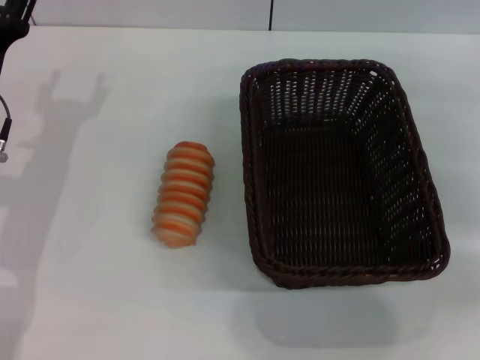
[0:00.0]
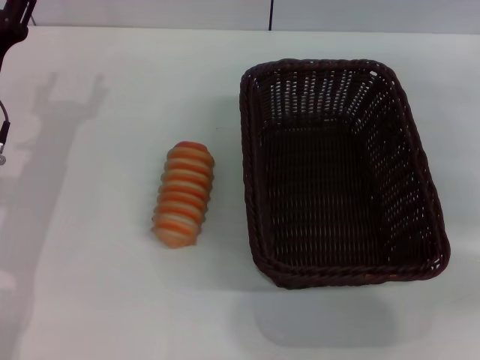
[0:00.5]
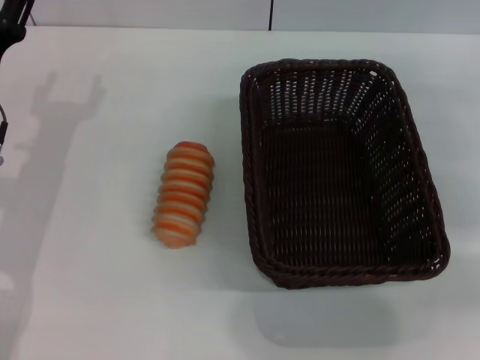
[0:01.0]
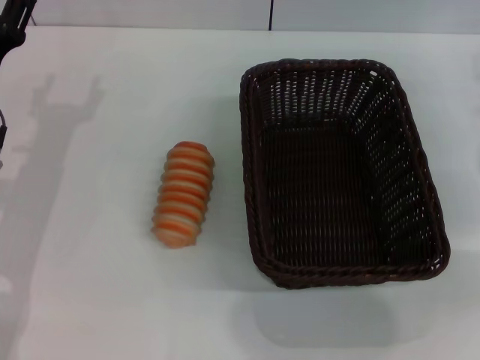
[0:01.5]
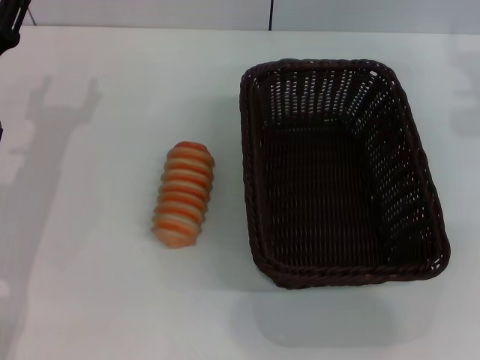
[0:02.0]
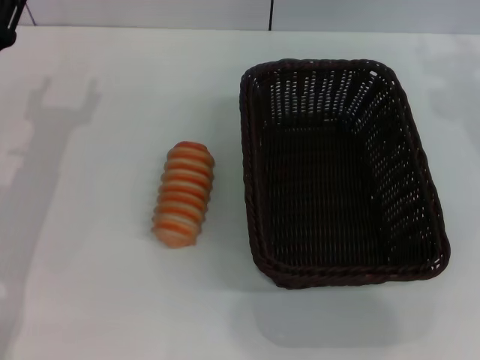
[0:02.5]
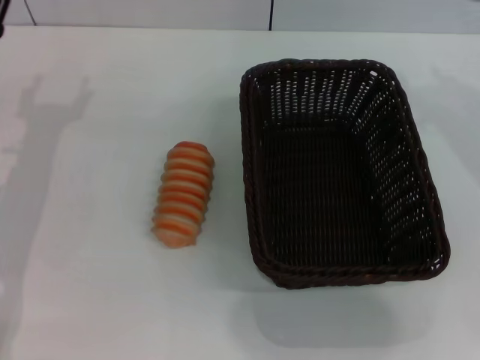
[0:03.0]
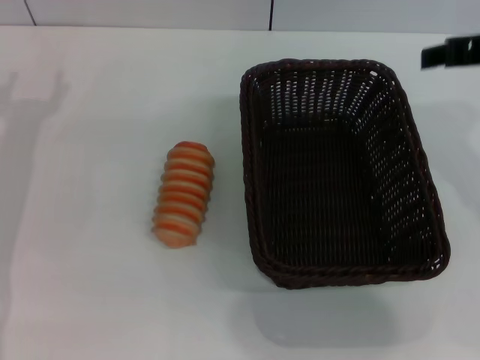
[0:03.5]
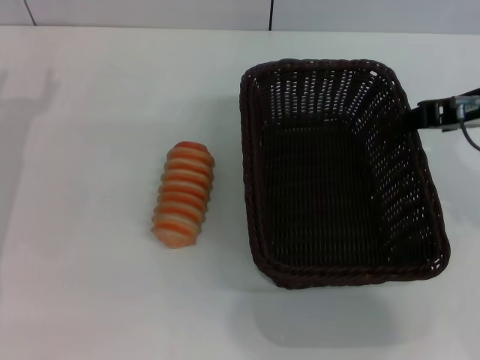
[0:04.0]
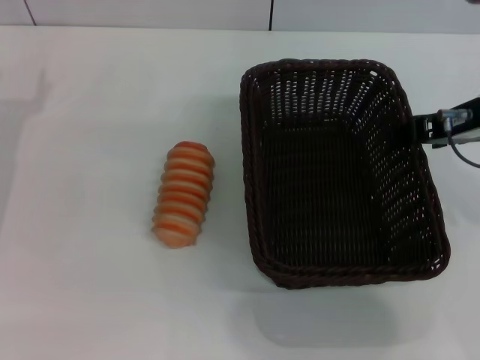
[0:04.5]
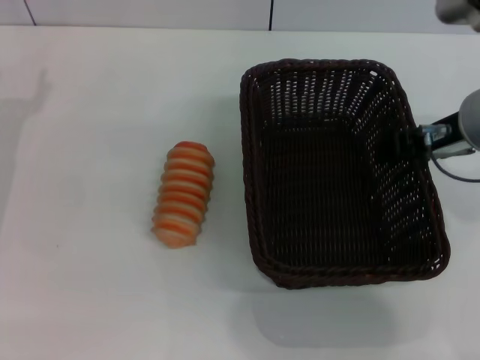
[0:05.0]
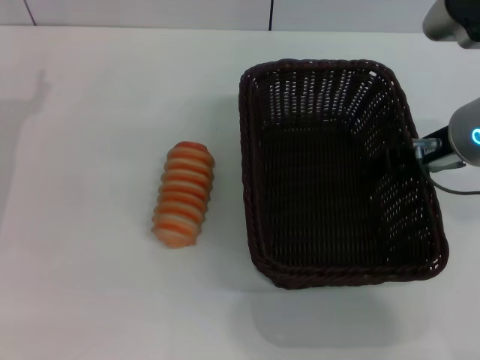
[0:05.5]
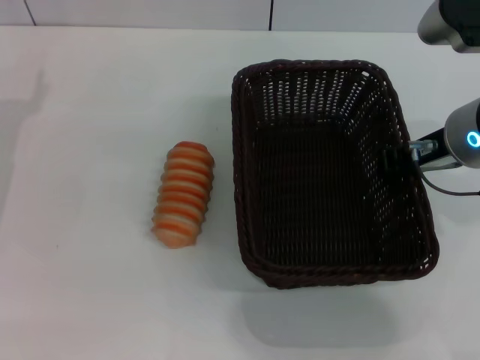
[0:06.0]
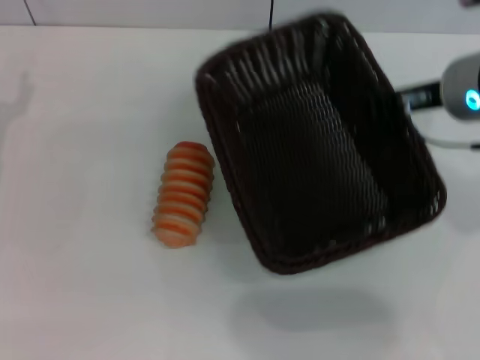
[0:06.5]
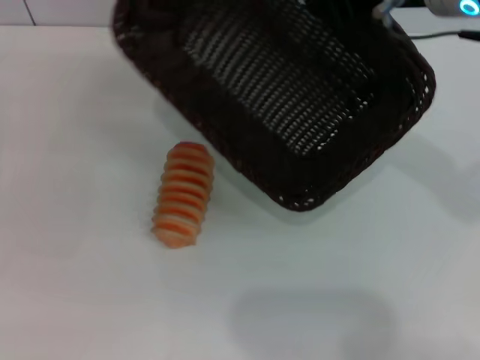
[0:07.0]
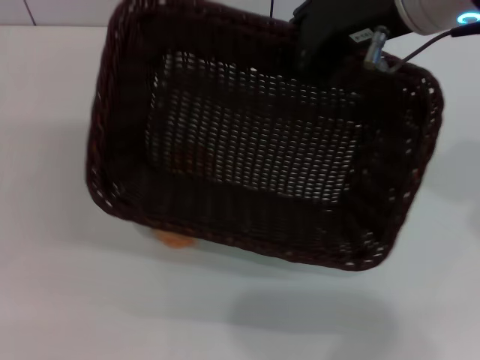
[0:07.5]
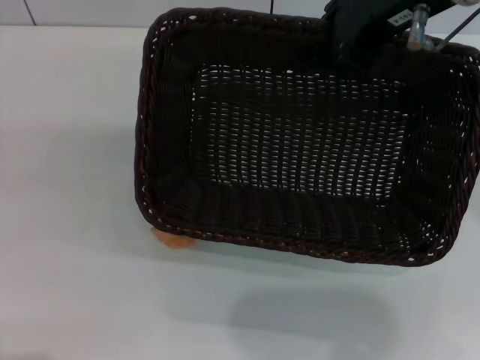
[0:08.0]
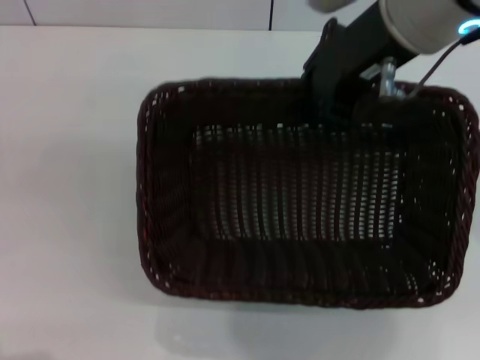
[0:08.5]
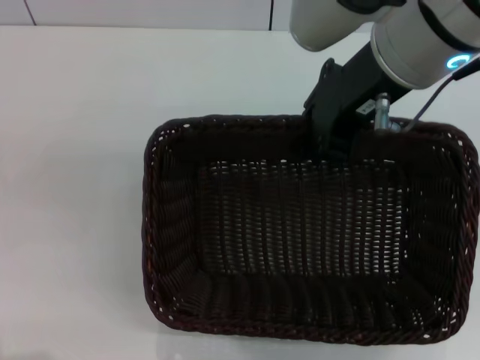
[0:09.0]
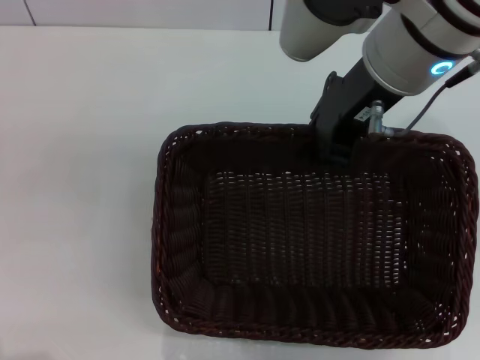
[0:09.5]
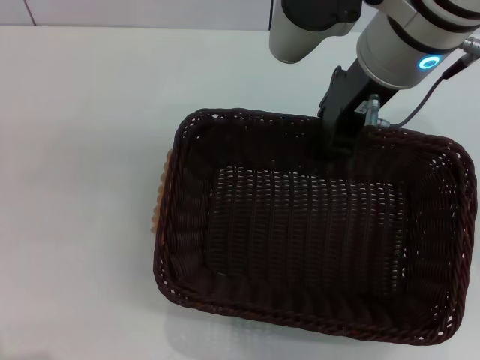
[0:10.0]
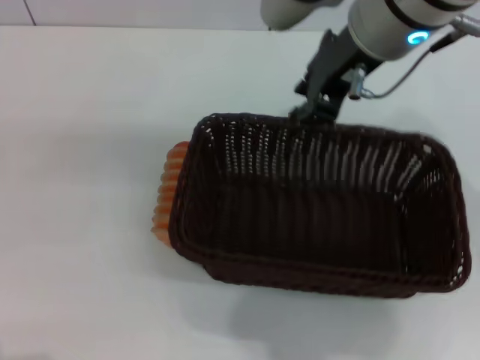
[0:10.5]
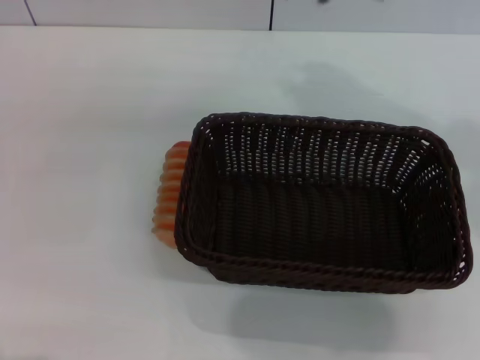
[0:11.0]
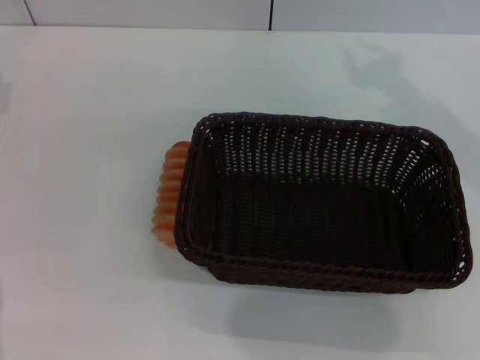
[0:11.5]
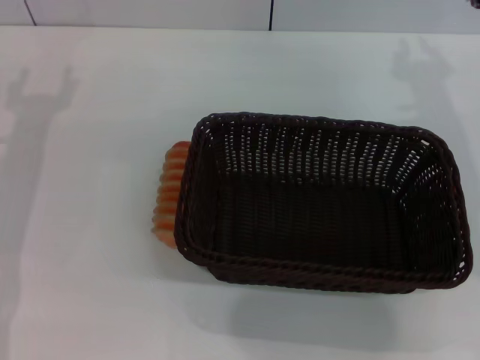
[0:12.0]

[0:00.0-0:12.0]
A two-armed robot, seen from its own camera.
Step, 0:00.0 to 0:06.5: Pick up the dark basket with the right gripper.
Step, 0:07.0 to 0:10.5: Place the dark basket in the center of view with the right gripper.
0:02.0 to 0:04.0: The right gripper travels to the left and backward by approximately 10 cm.
0:04.0 to 0:06.0: The right gripper changes place by some 5 cm, and closes up.
0:06.0 to 0:08.0: The right gripper heads upward, covering some 15 cm, and closes.
0:08.0 to 0:10.0: The right gripper goes some 5 cm downward.
0:10.0 to 0:12.0: The right gripper is displaced to the right and downward by about 15 cm. The left gripper heads to the right, covering approximately 5 cm.

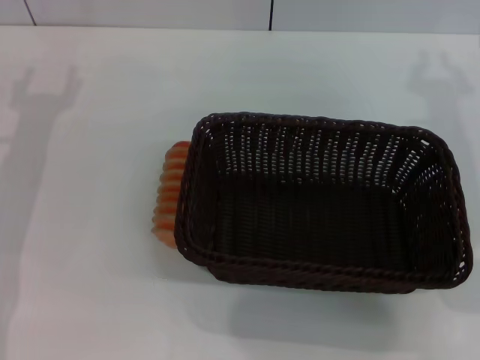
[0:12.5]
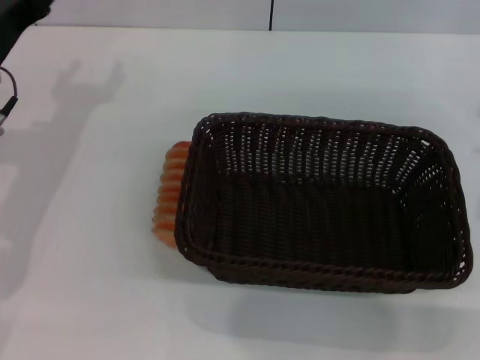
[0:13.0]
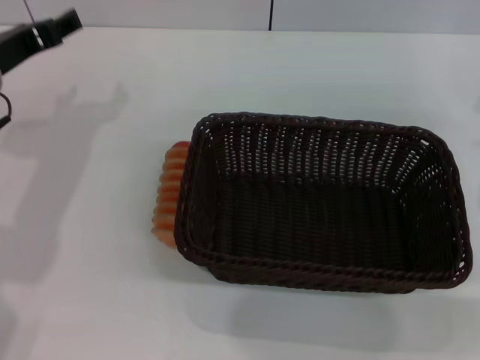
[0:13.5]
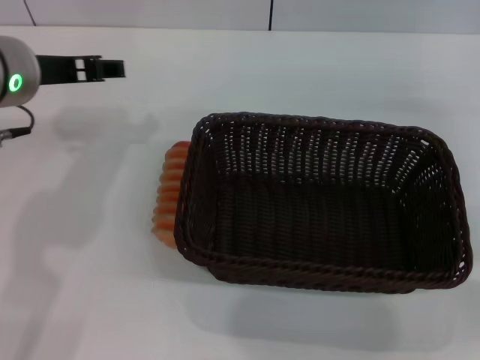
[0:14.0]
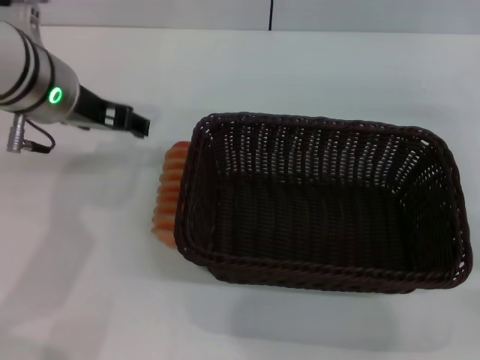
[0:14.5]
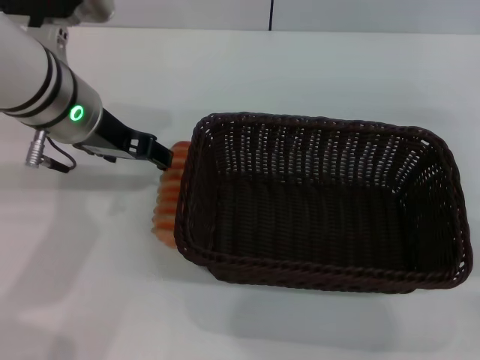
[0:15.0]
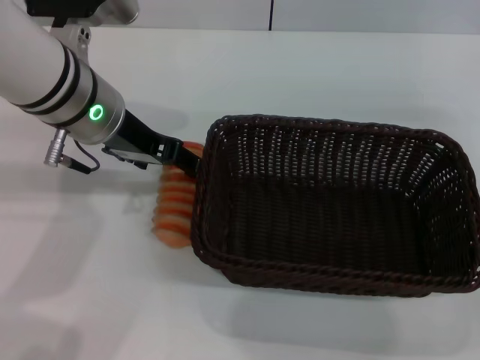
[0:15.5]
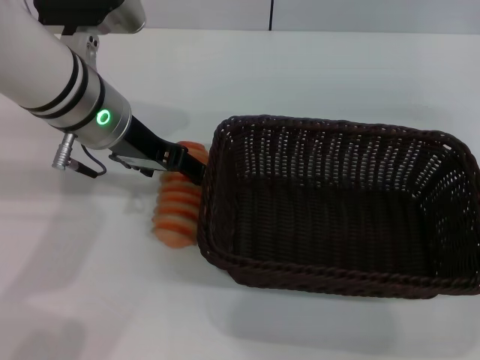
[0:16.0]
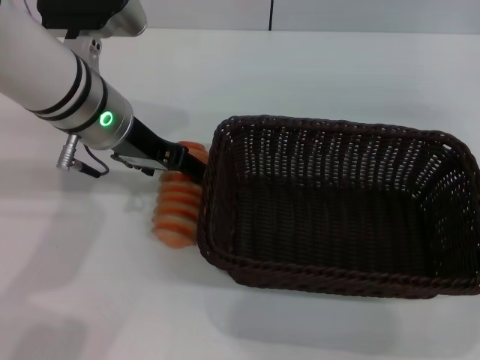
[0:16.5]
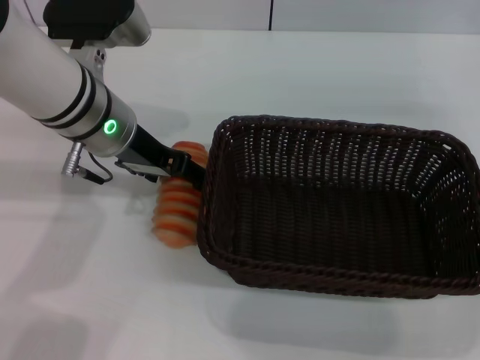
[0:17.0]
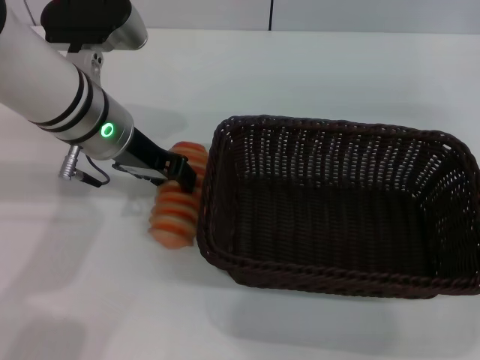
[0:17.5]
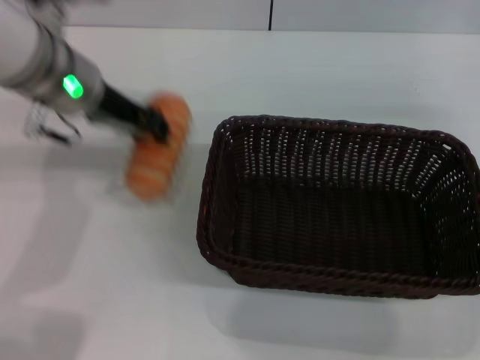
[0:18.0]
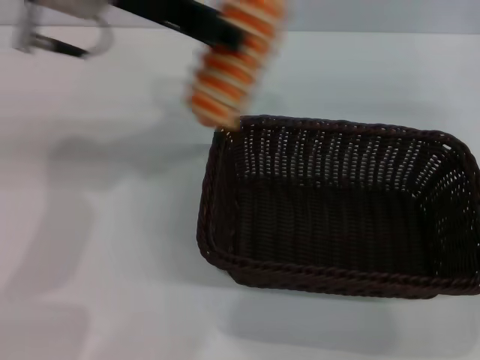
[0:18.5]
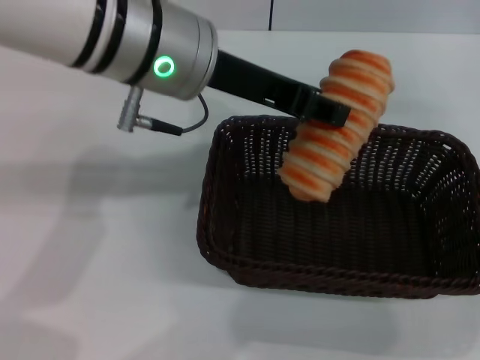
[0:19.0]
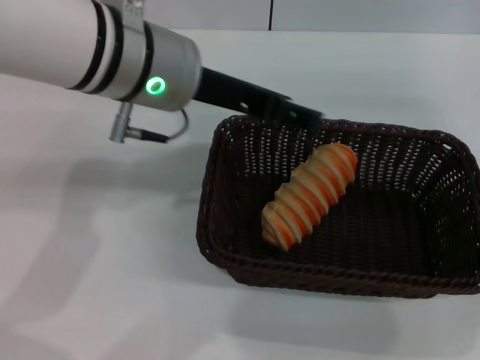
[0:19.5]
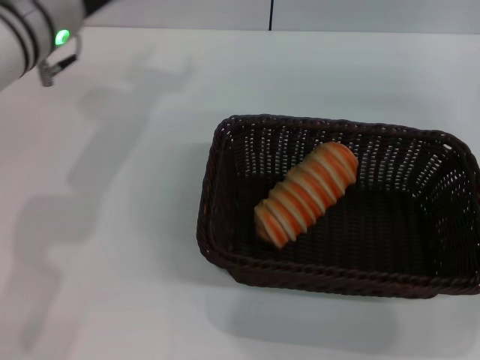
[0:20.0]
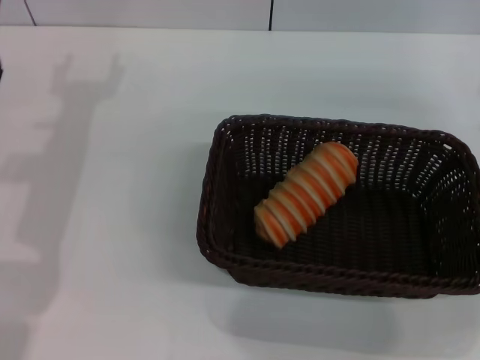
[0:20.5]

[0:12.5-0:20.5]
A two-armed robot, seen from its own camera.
Step, 0:12.5 to 0:18.0: Pick up the long bread with the left gripper.
Step, 0:18.5 to 0:19.5: Place the long bread into the dark basket with the left gripper.
0:12.5 to 0:14.5: The right gripper goes about 15 cm to the right and downward. The left gripper goes some 15 cm to the right and upward.
0:14.5 to 0:16.5: The grippers make only small movements.
0:16.5 to 0:18.5: The left gripper moves upward, approximately 15 cm, and closes.
0:18.5 to 0:20.5: The left gripper travels downward and to the left by some 20 cm, and opens.

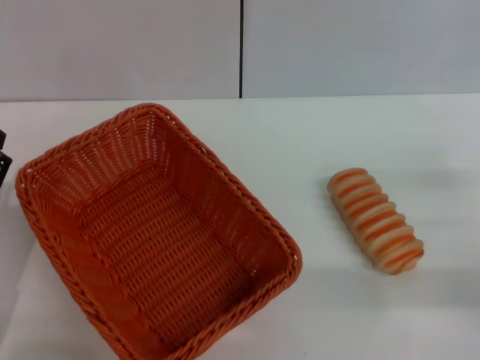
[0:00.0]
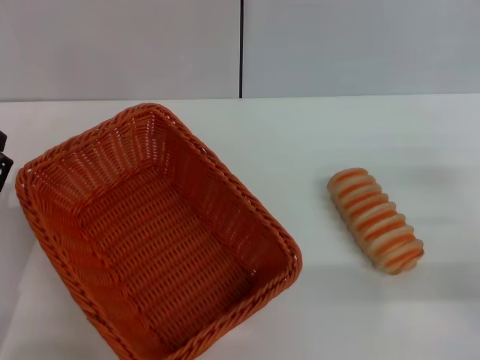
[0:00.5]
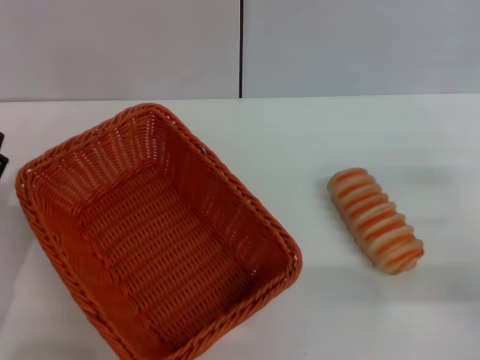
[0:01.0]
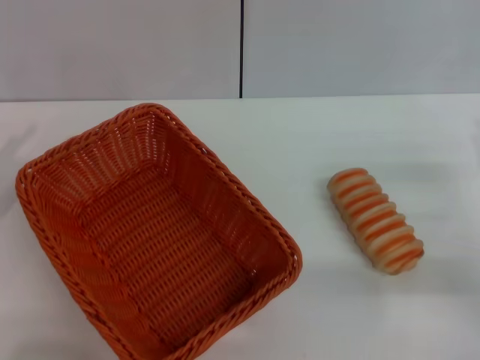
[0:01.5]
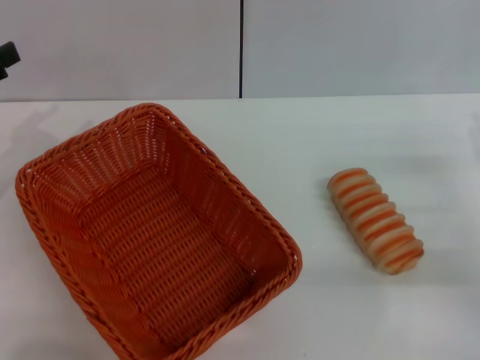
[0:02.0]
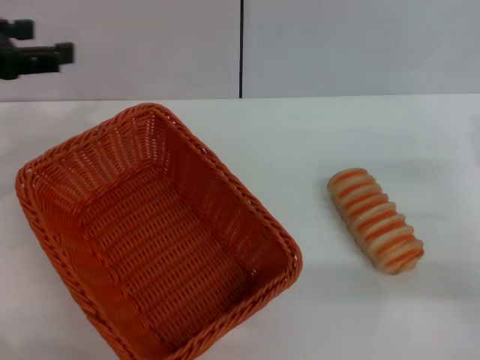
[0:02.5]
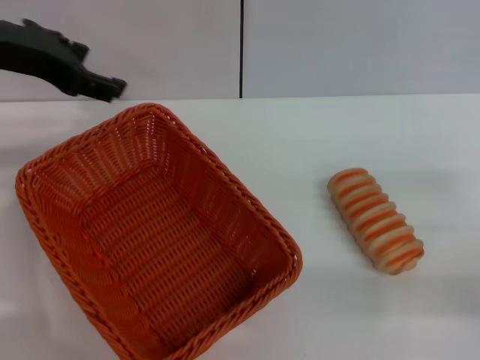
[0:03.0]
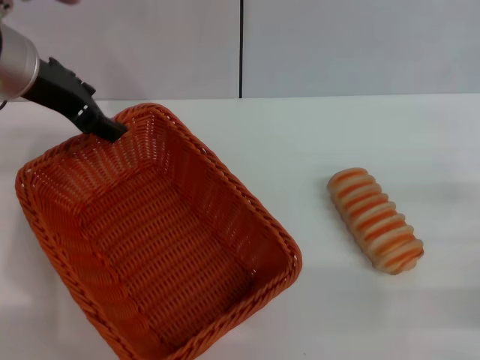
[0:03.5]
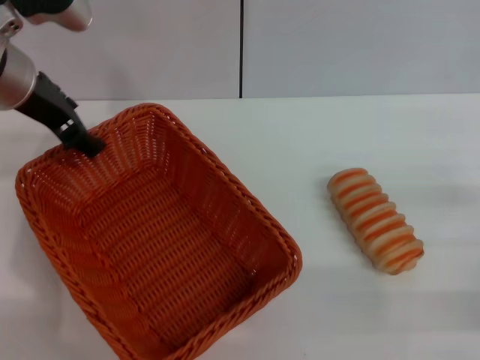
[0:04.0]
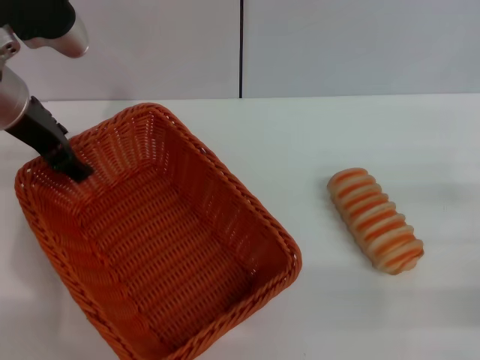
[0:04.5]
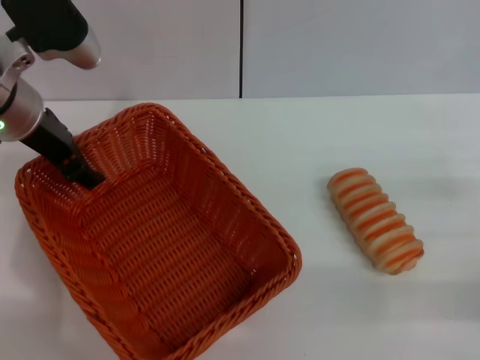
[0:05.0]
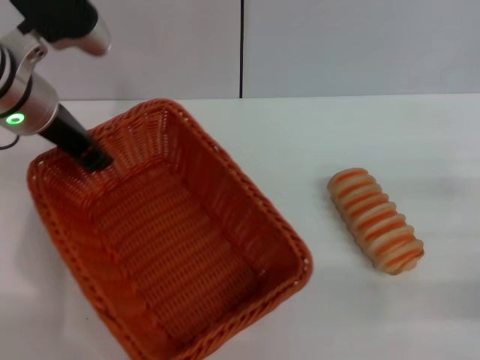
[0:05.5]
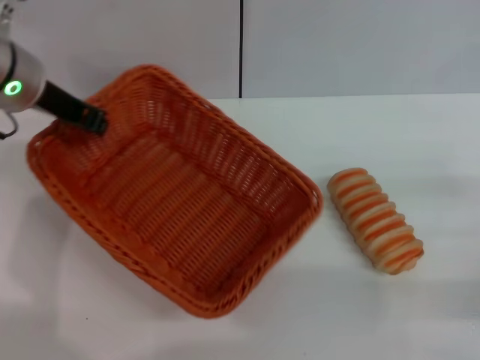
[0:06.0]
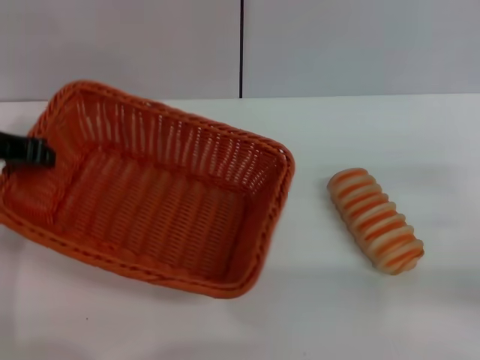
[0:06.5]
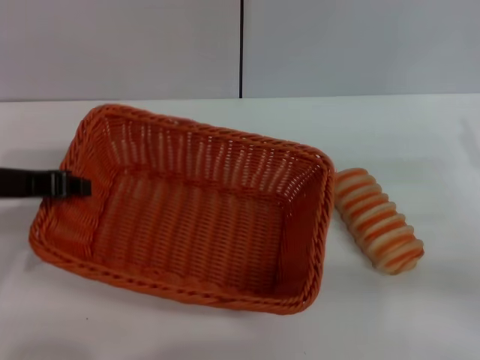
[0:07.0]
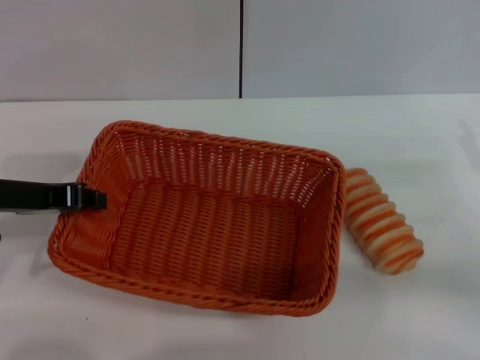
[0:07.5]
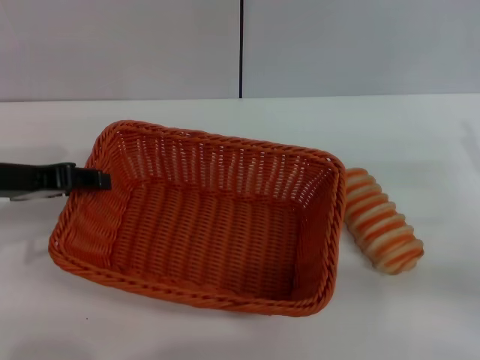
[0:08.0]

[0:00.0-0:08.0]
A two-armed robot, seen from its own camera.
Step, 0:00.0 to 0:06.5: Pick up the light basket with the left gripper.
0:00.0 to 0:02.0: The left gripper travels upward, forward and to the left by about 20 cm.
0:02.0 to 0:04.0: The left gripper heads to the right and forward, covering about 15 cm.
0:04.0 to 0:06.0: The left gripper closes its fingers.
0:06.0 to 0:08.0: The left gripper is displaced backward and to the left by about 10 cm.
